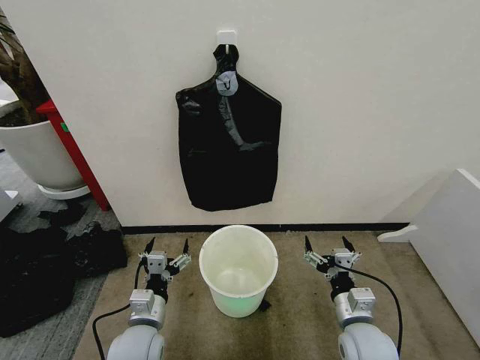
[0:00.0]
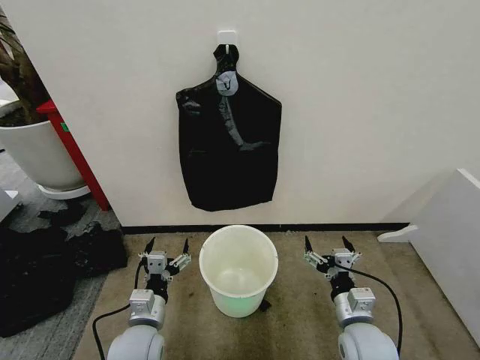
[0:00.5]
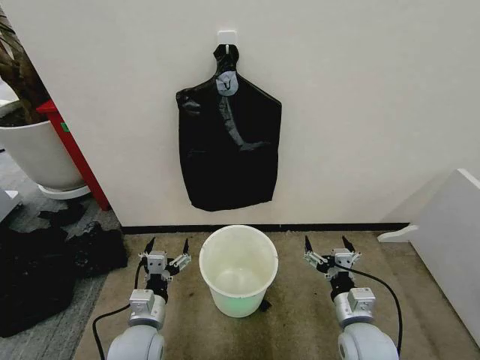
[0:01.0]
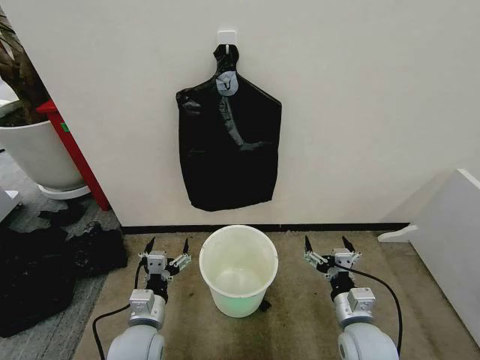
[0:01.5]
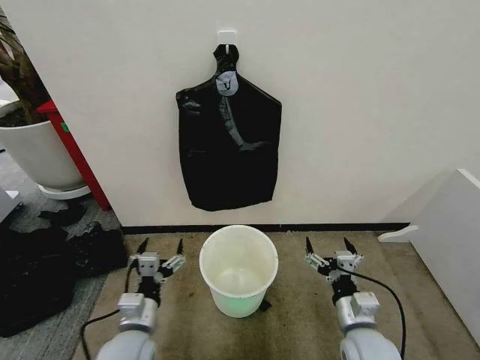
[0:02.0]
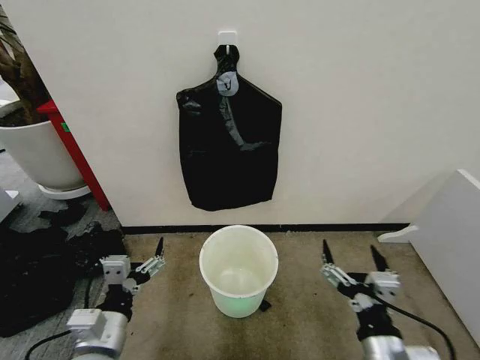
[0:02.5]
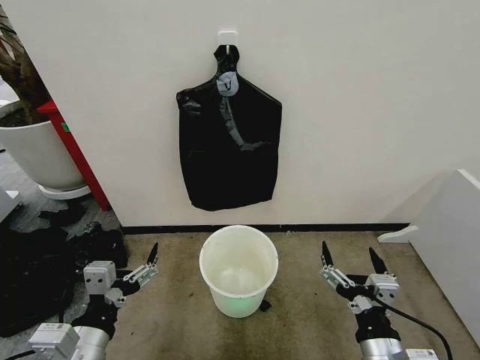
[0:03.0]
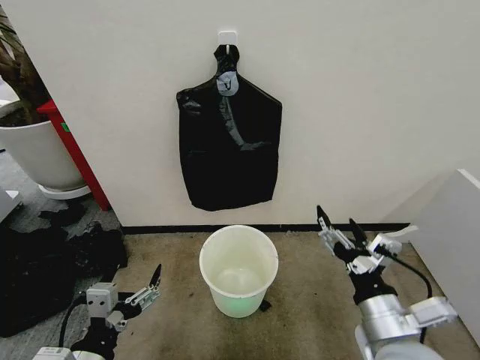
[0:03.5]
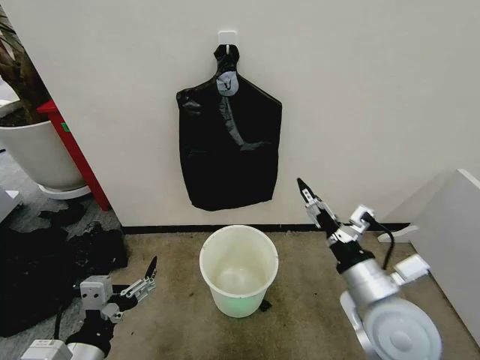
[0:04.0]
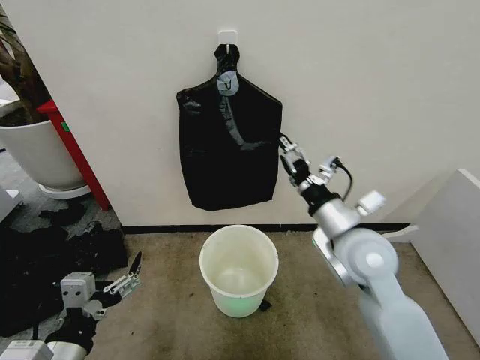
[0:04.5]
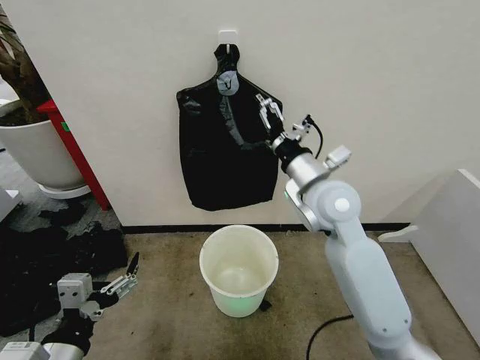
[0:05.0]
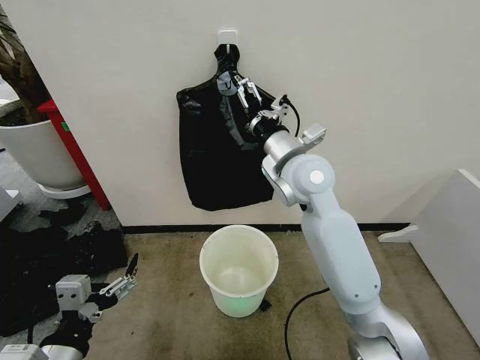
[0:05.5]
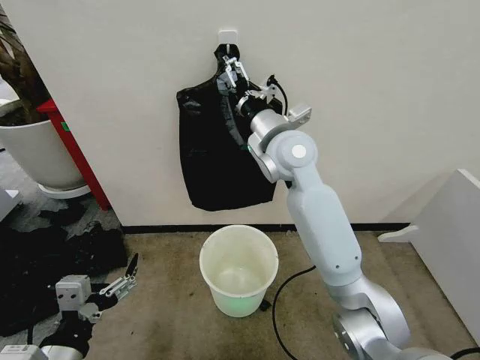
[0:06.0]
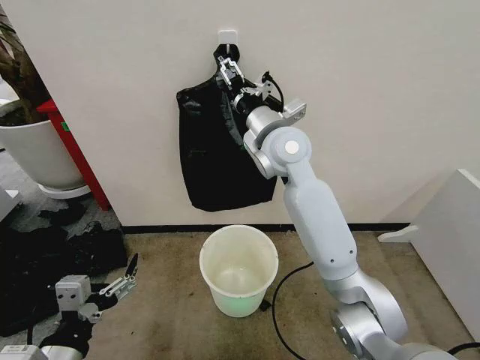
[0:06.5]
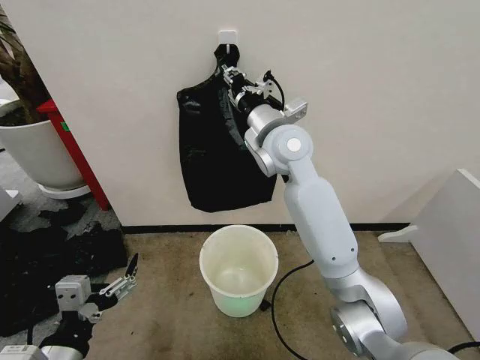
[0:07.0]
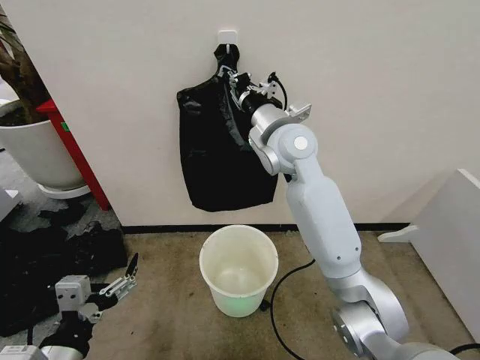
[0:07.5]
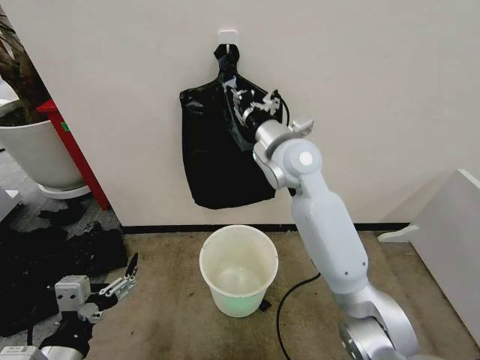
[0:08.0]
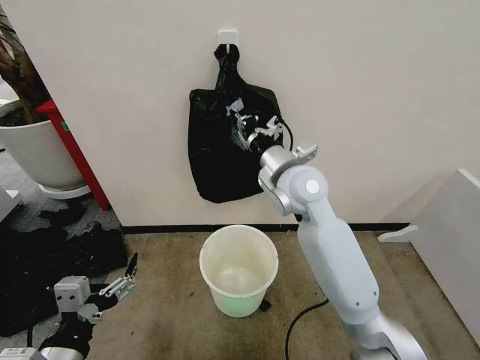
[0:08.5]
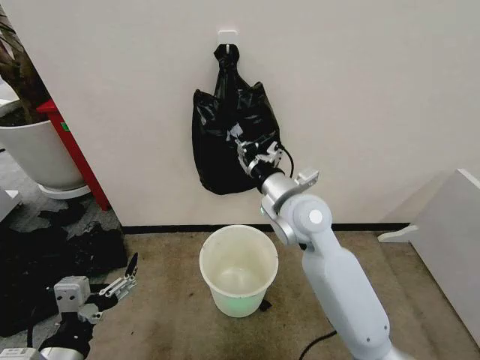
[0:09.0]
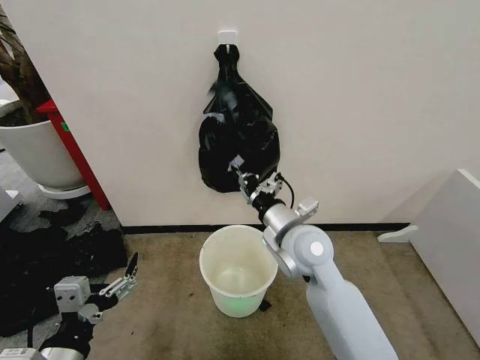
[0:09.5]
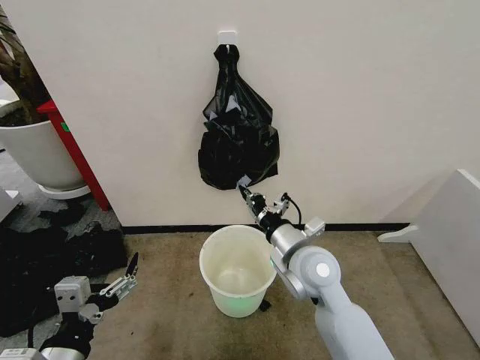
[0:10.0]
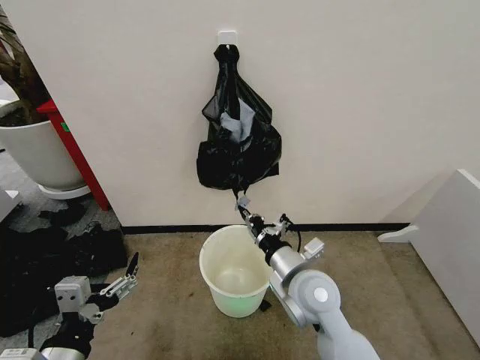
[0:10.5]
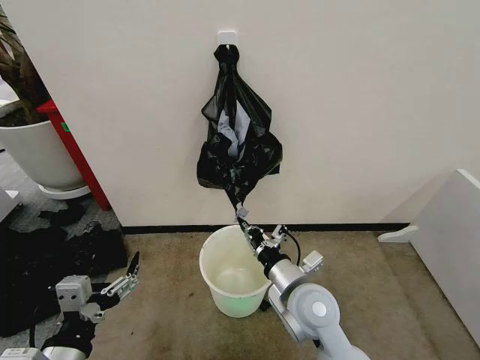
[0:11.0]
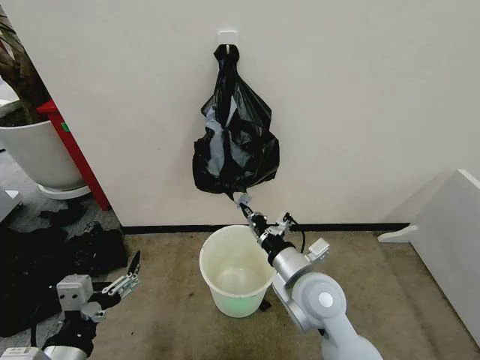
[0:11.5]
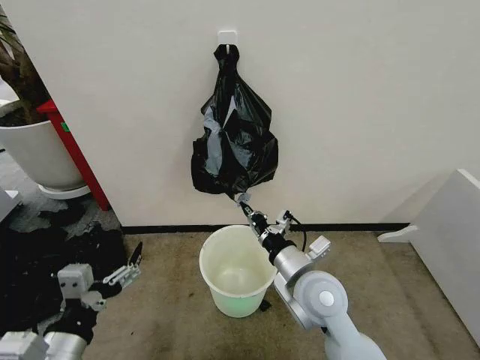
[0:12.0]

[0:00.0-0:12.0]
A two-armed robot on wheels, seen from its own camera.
Task of the whole recording: Place the garbage bag over the trash bin.
0:02.0 to 0:04.0: The right gripper shifts roughly 15 cm upward; the left gripper shifts about 15 cm upward and backward.
0:04.0 to 0:06.0: The right gripper moves forward, upward and to the left, roughly 30 cm.
0:06.0 to 0:08.0: The right gripper closes up.
0:08.0 to 0:10.0: The right gripper moves downward and backward, some 20 cm.

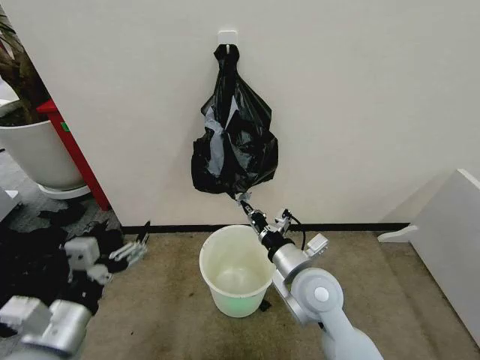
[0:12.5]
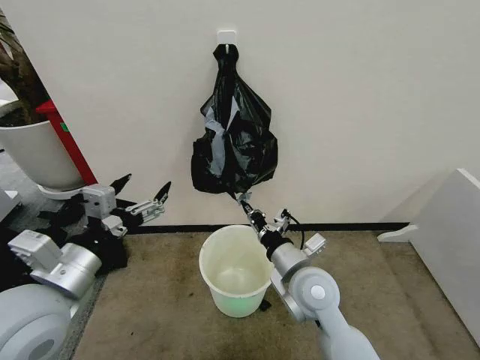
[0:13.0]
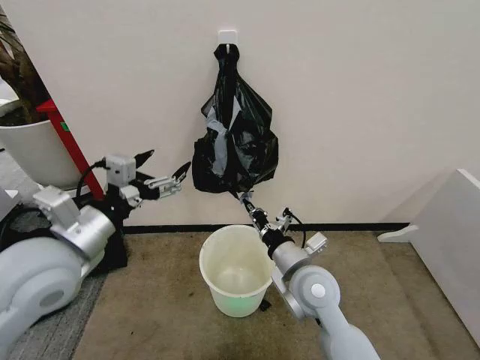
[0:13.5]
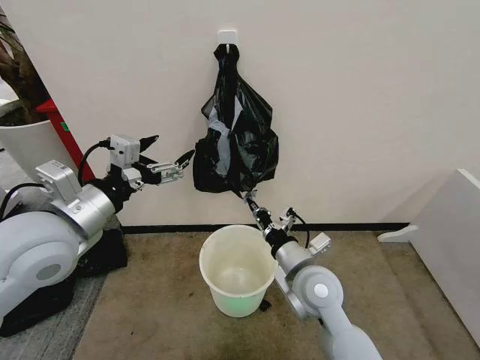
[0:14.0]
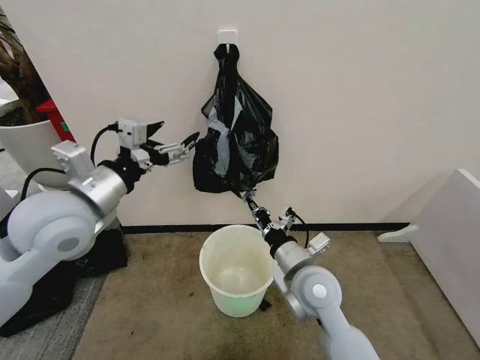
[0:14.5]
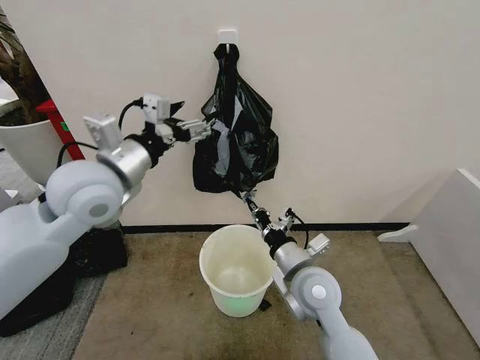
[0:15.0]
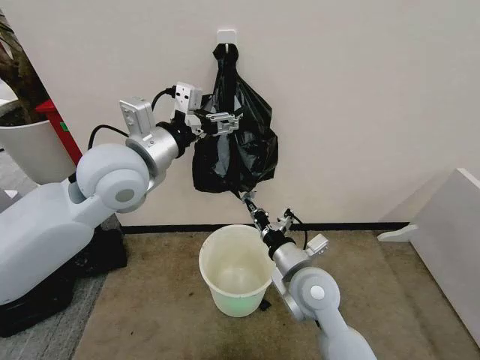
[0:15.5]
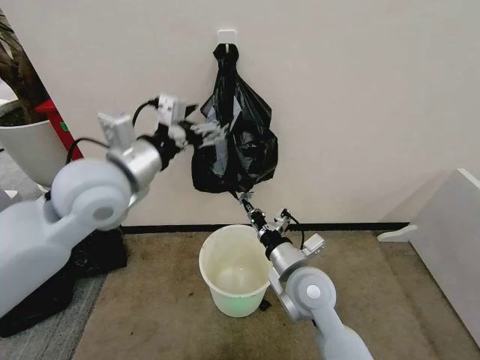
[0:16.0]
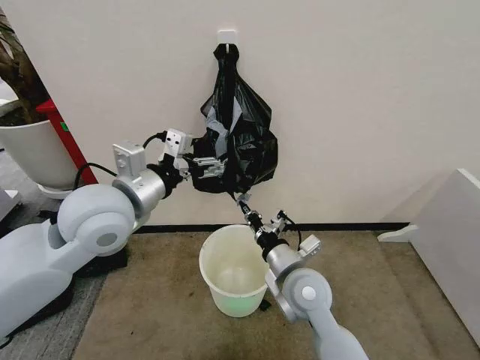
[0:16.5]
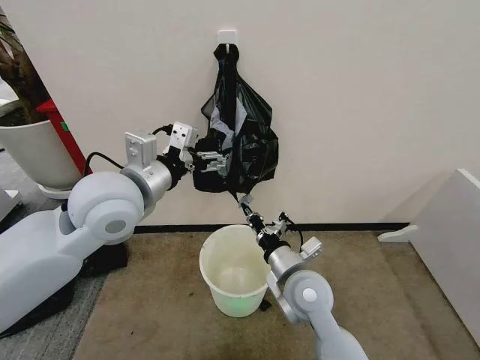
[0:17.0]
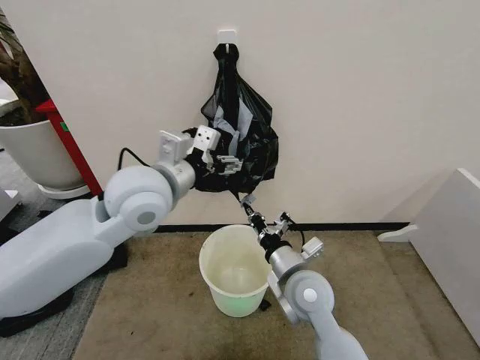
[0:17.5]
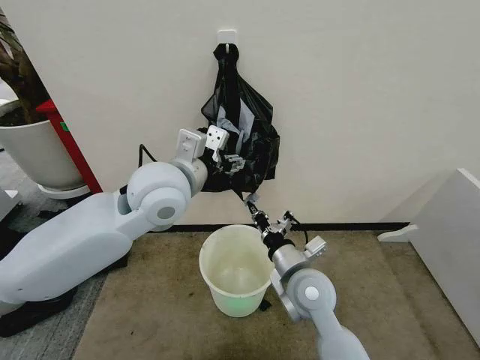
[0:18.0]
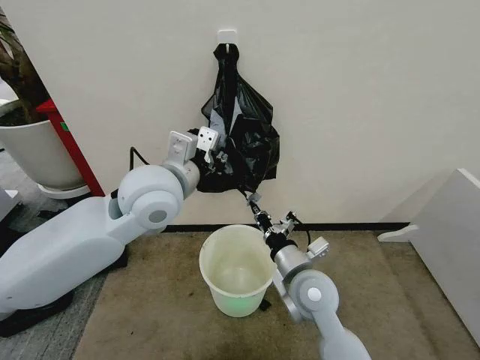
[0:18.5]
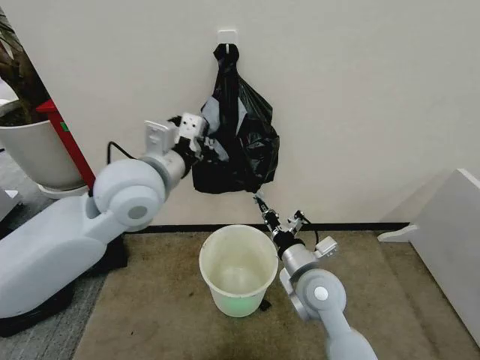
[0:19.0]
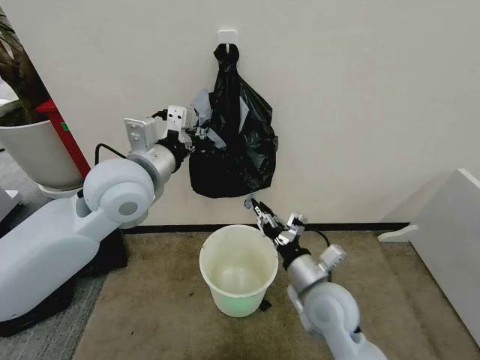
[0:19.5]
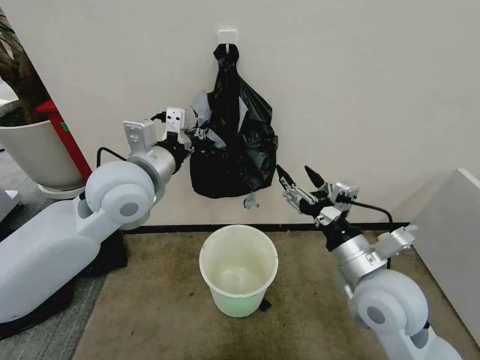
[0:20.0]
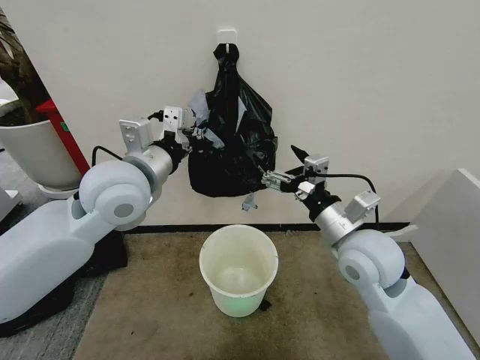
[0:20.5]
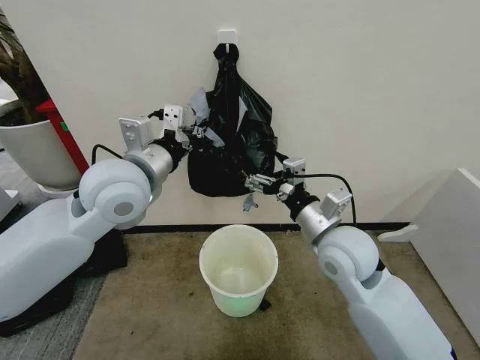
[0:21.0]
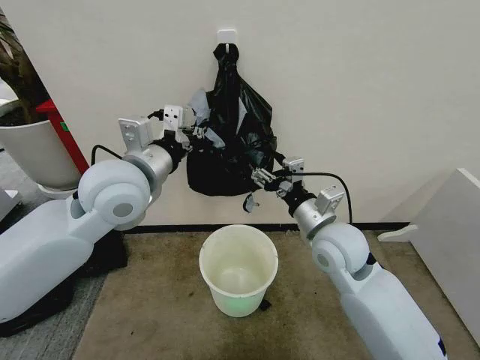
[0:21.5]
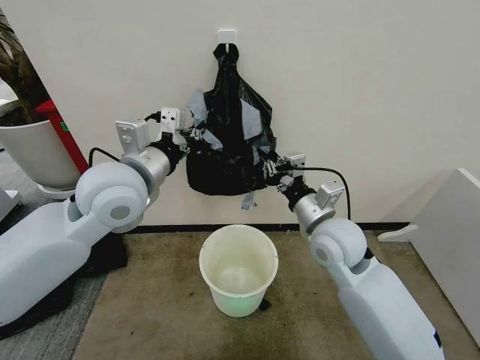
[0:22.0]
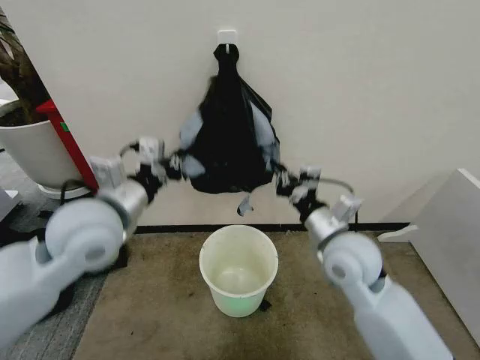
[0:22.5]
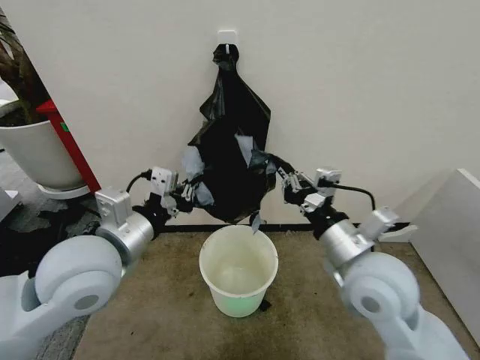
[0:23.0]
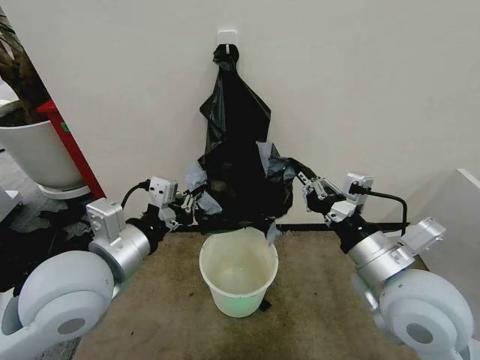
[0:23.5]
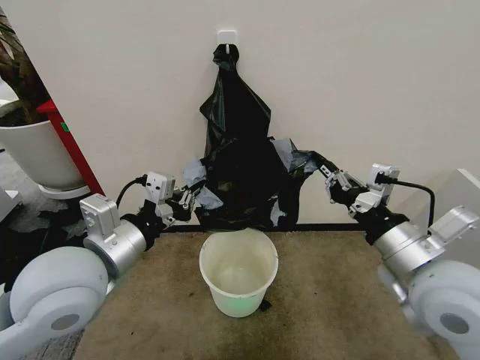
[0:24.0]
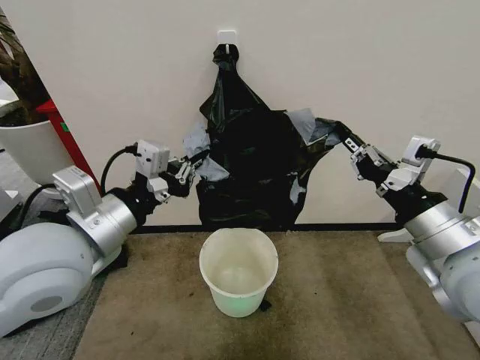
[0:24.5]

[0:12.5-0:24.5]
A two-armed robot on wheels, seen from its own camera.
Task of the whole recording: Place the garbage bag over the trash bin.
0:12.5 to 0:14.5: The left gripper shifts some 20 cm forward and upward.
0:14.5 to 0:16.5: The left gripper shifts about 5 cm to the right.
0:16.5 to 0:18.5: The left gripper is displaced to the right by approximately 5 cm, and closes.
0:18.5 to 0:20.5: The left gripper travels to the left by approximately 5 cm, while the right gripper goes some 15 cm upward and to the right, and opens up.
0:20.5 to 0:22.5: The left gripper moves about 5 cm. Meanwhile the right gripper closes.
0:22.5 to 0:24.5: The right gripper heads upward, to the right and backward, covering approximately 15 cm, while the left gripper goes approximately 5 cm backward.

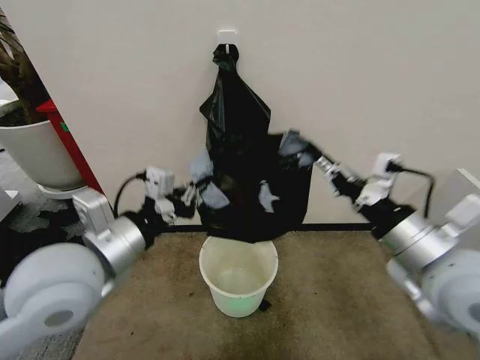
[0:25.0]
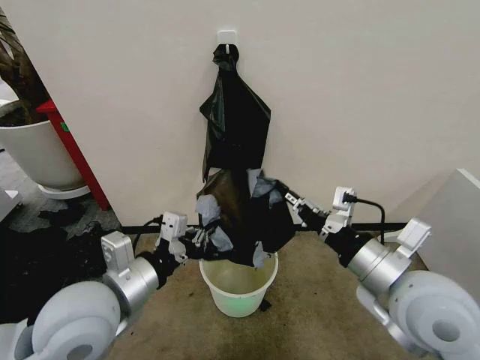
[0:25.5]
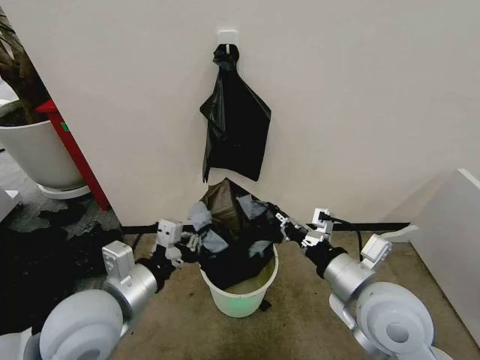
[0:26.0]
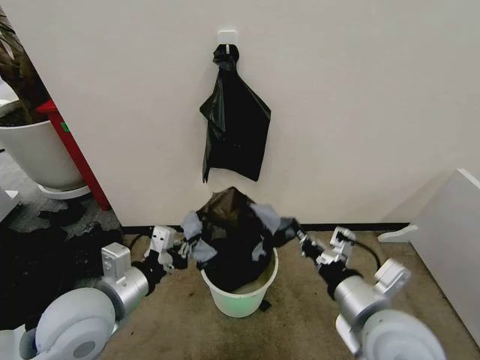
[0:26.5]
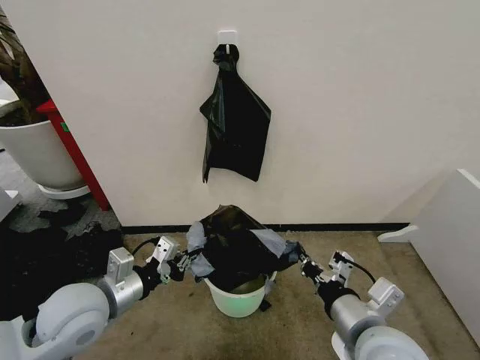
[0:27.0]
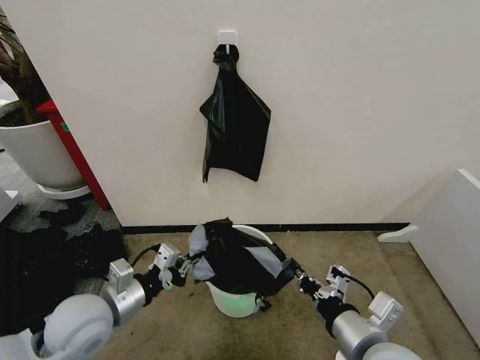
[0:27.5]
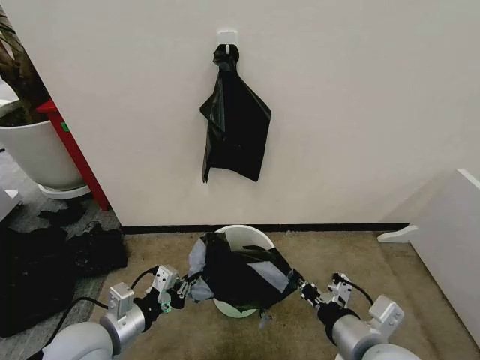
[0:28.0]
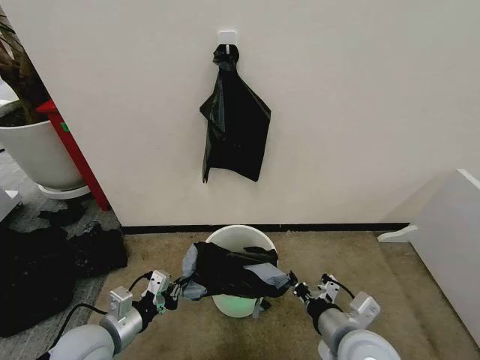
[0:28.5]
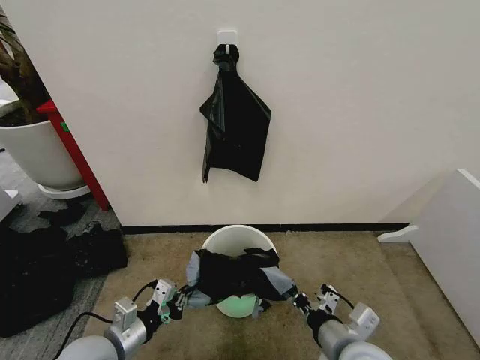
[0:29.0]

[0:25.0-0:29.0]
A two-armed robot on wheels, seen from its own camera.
Task of the whole recording: Place the garbage bag over the trash bin.
0:25.0 to 0:27.0: The right gripper moves downward, to the left and backward, approximately 15 cm, while the left gripper is displaced downward by roughly 15 cm.
0:27.0 to 0:29.0: The right gripper heads downward, covering roughly 5 cm, while the left gripper shifts roughly 10 cm downward and backward.
